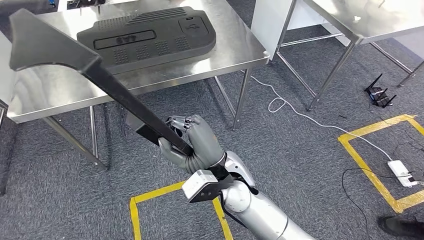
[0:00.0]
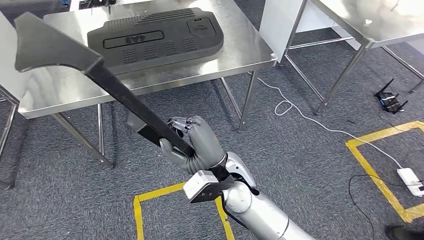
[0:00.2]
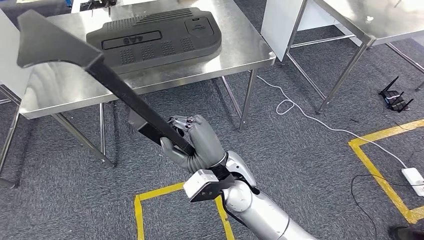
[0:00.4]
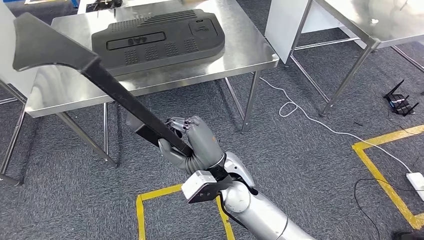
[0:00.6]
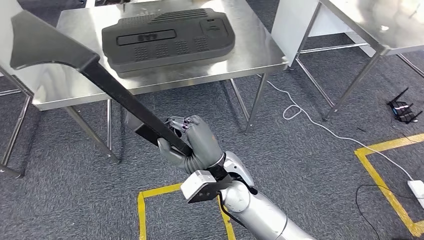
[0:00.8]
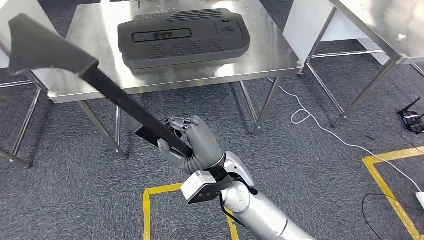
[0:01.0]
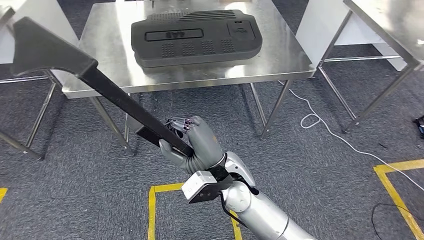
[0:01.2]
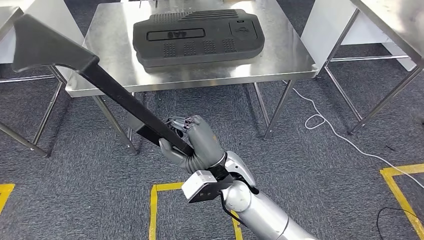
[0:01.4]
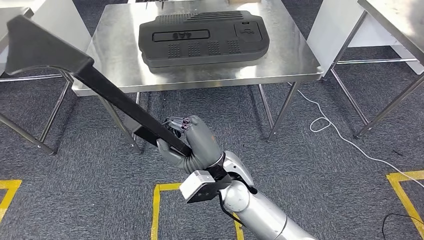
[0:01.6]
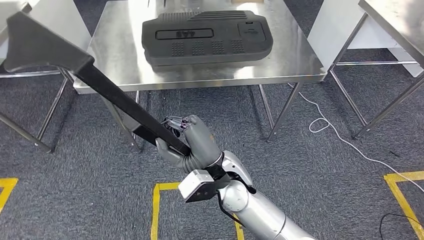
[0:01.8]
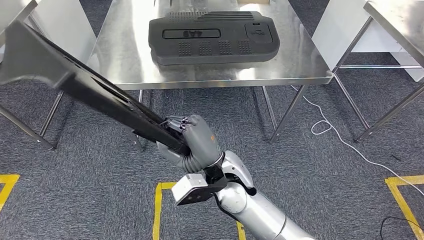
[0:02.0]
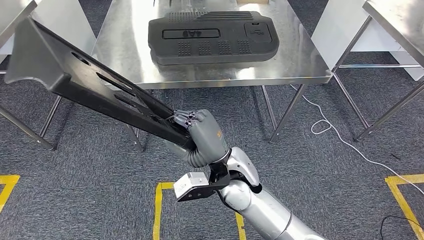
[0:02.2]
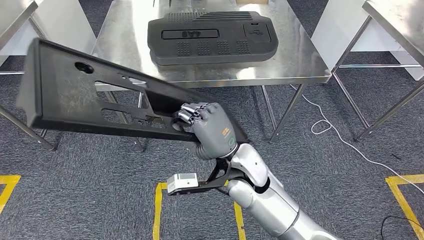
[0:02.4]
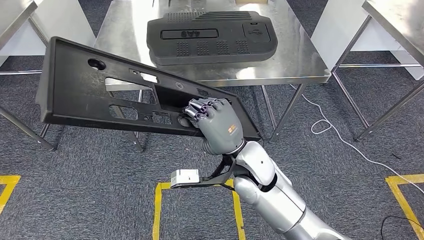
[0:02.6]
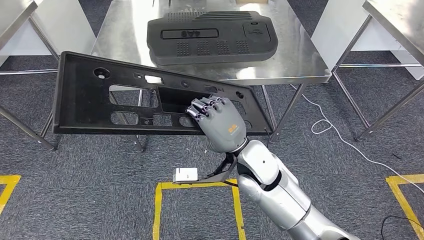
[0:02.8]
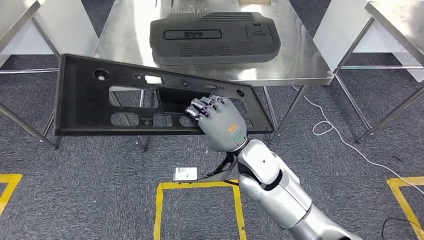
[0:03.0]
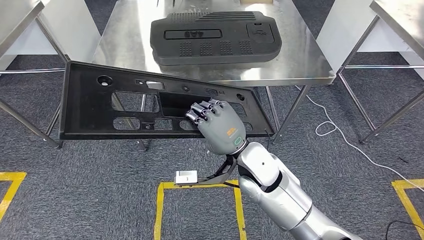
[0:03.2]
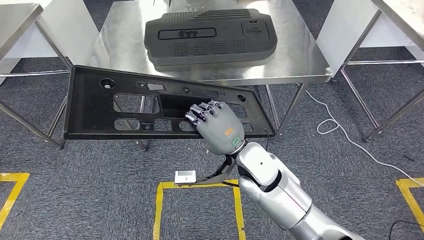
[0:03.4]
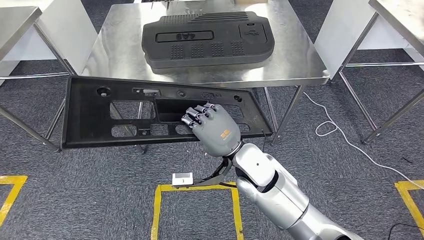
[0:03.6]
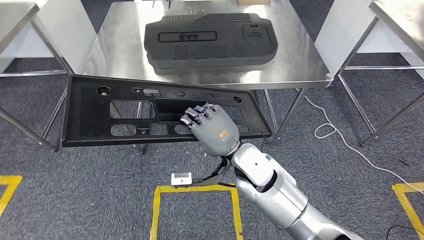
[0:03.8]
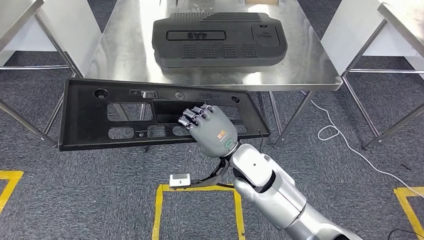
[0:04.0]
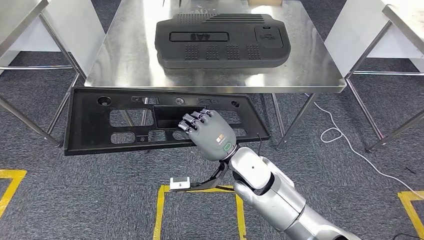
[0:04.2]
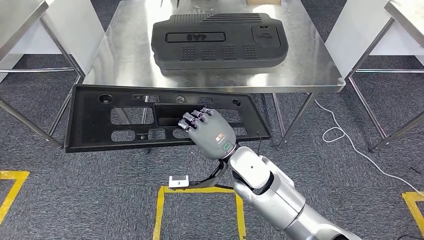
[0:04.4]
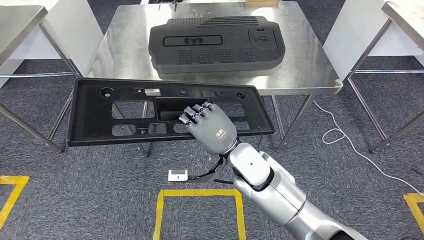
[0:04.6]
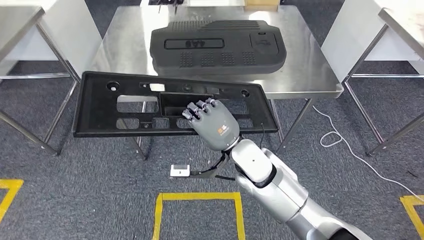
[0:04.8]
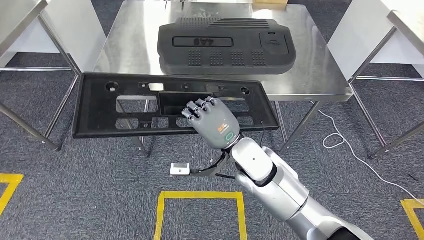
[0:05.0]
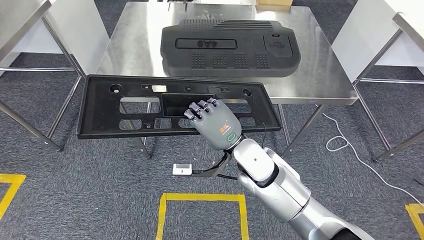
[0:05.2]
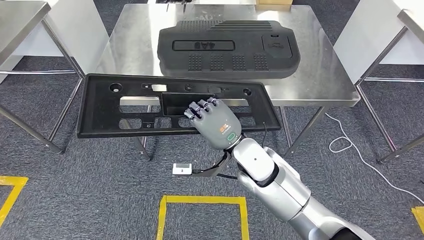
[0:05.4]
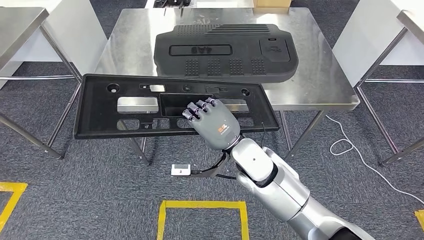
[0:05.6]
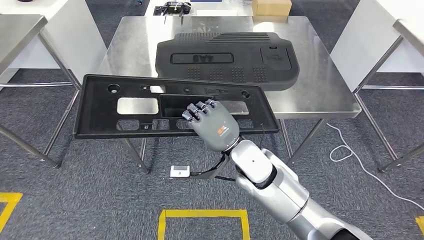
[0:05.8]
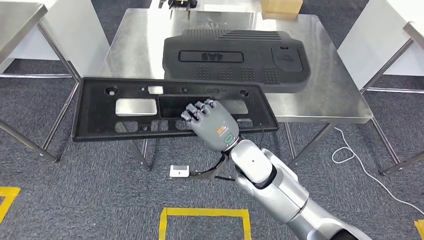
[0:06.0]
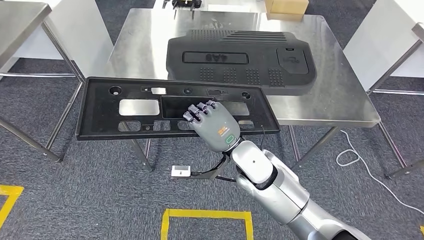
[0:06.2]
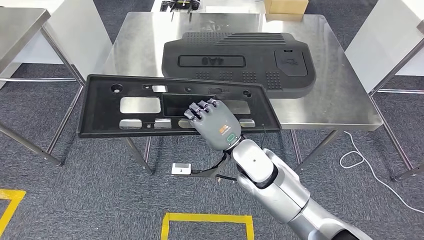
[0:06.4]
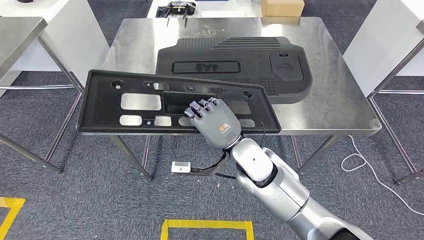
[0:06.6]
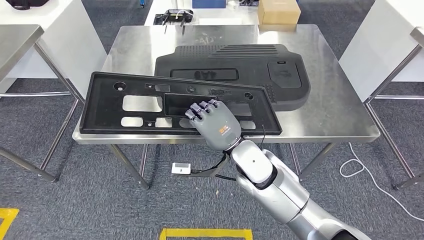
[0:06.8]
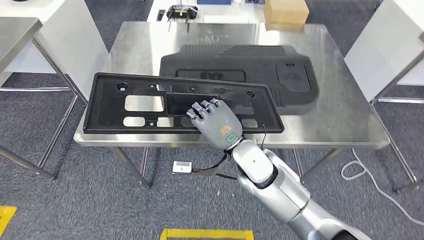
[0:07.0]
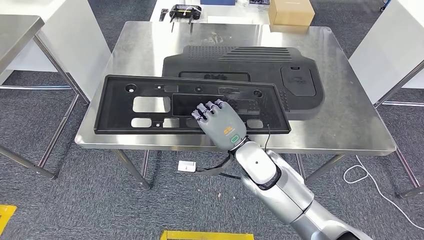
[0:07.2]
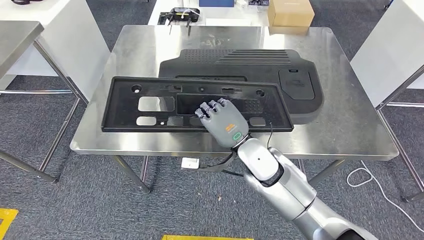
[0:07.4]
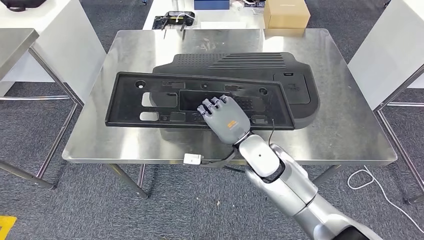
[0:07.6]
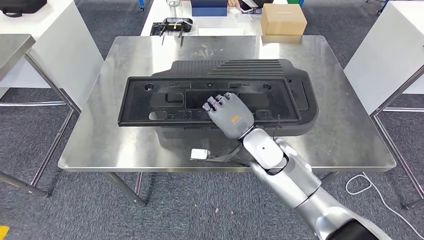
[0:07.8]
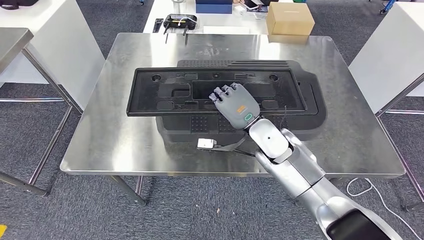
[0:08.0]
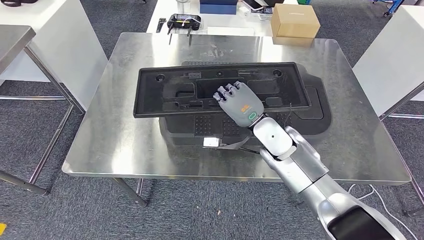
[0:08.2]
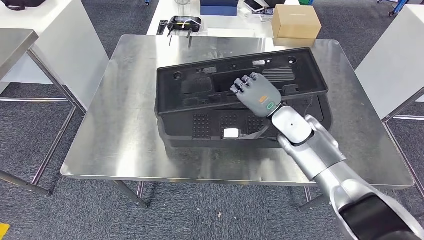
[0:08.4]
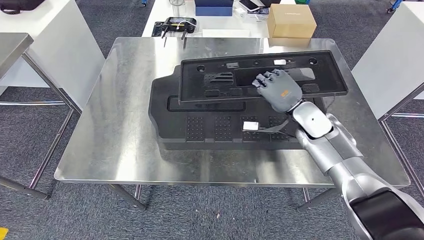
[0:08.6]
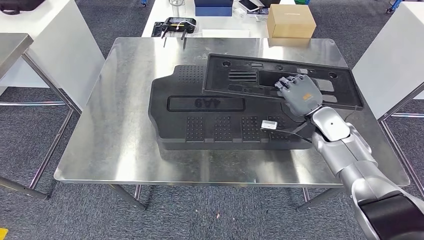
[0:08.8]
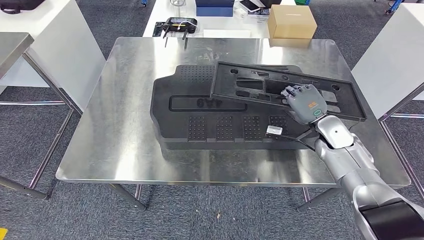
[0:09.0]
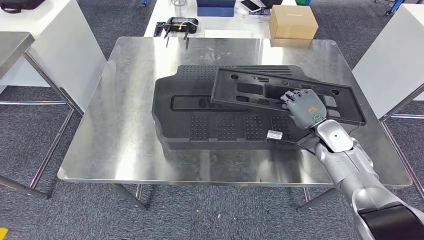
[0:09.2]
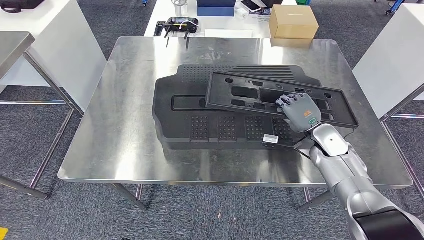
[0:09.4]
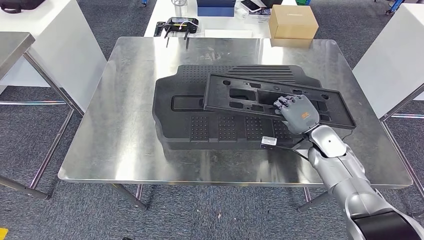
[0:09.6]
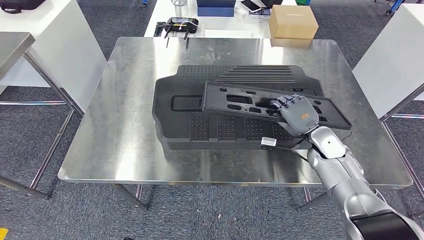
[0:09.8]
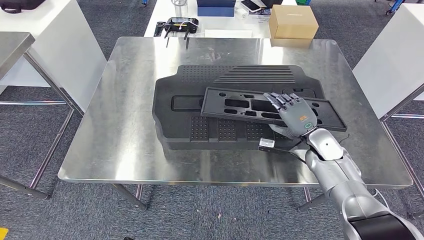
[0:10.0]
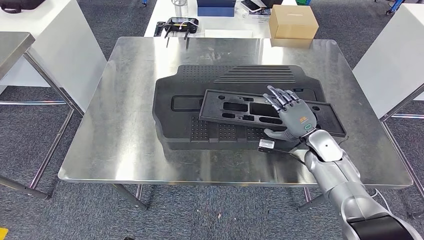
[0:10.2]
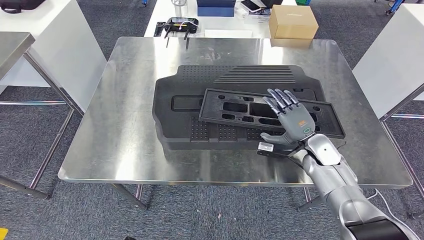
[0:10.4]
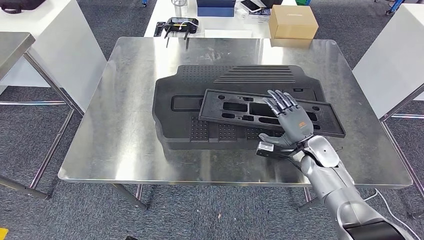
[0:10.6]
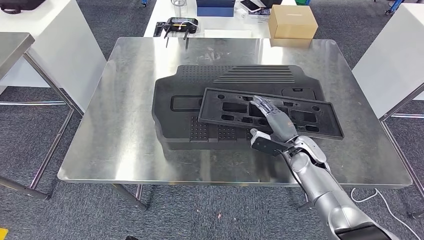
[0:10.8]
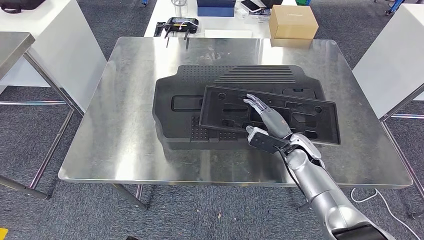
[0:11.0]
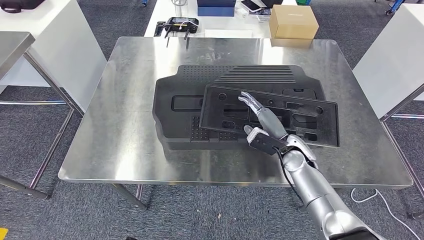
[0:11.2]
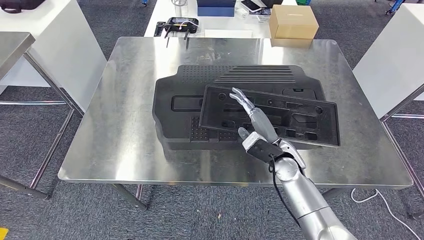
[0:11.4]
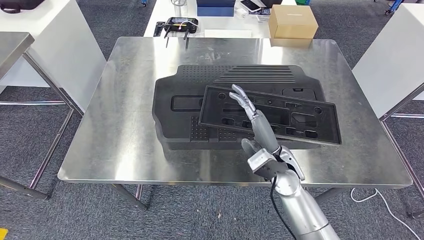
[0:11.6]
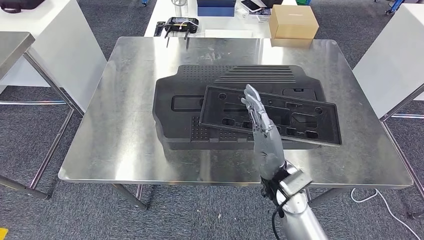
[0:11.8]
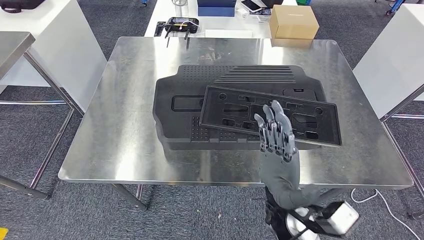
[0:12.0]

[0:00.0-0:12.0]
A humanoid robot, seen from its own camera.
Step, 0:00.0 to 0:10.2: Insert the large material into the corresponding slot on the workbench.
0:09.0 to 0:10.4: The right hand changes place by roughly 5 cm.
0:10.4 to 0:12.0: The right hand moves to the left, backward and upward, some 25 cm.

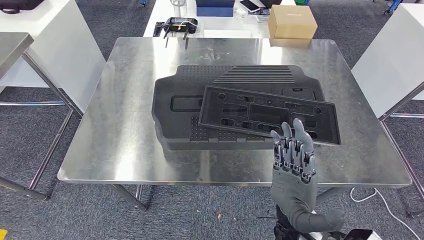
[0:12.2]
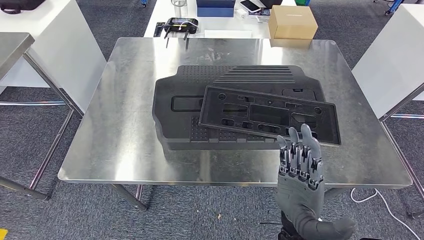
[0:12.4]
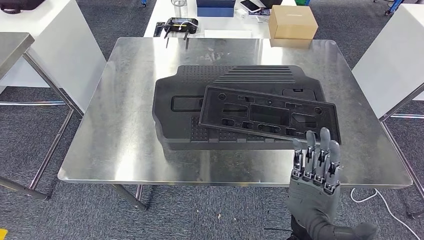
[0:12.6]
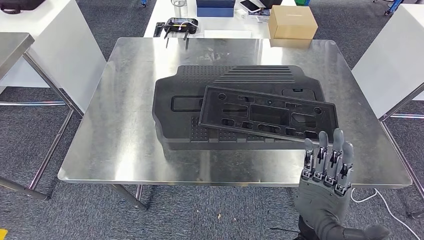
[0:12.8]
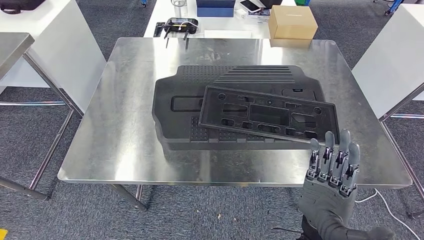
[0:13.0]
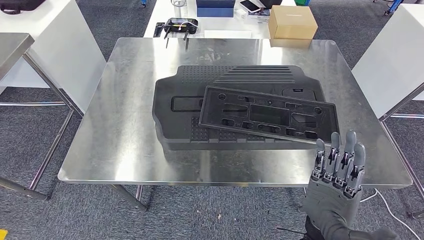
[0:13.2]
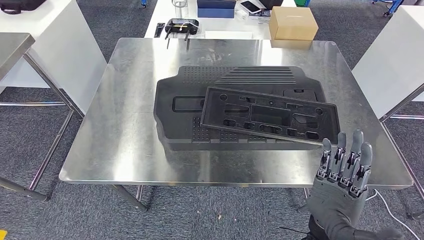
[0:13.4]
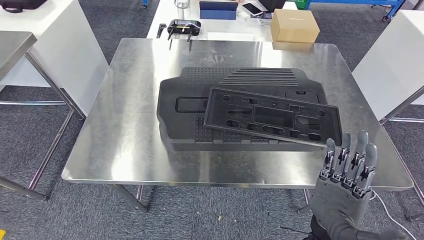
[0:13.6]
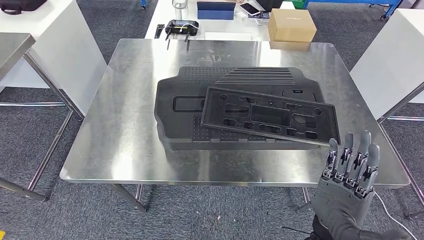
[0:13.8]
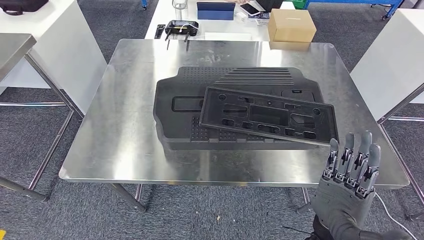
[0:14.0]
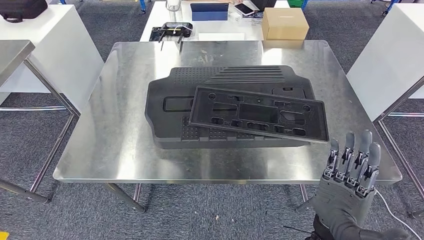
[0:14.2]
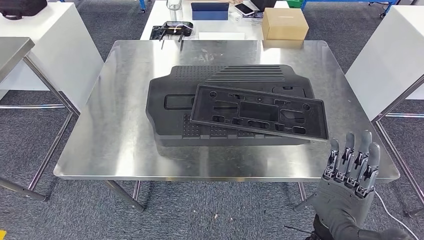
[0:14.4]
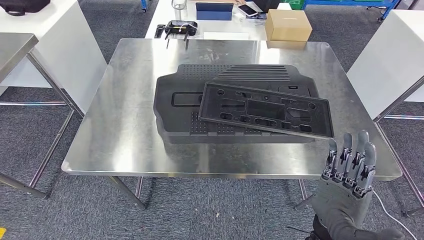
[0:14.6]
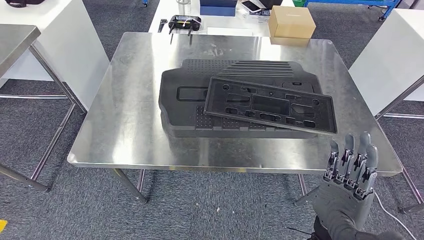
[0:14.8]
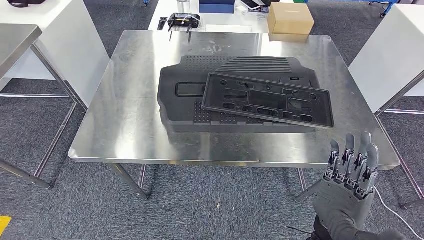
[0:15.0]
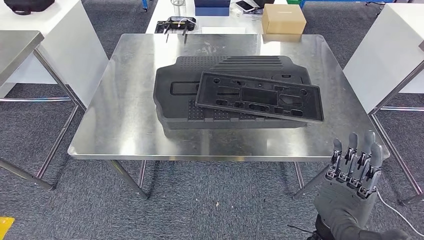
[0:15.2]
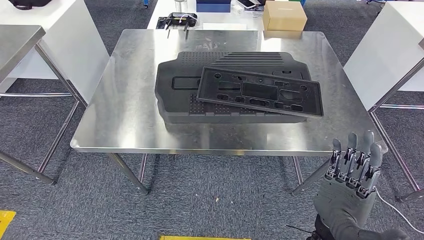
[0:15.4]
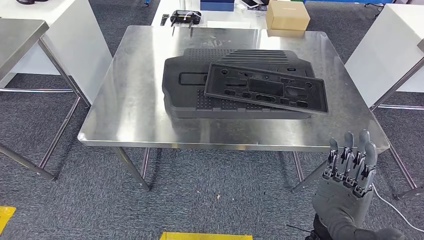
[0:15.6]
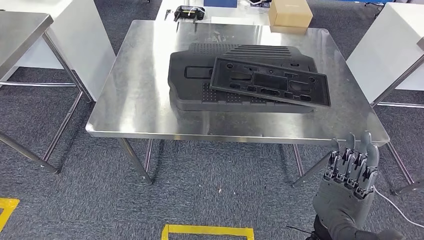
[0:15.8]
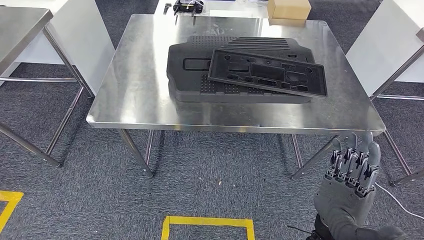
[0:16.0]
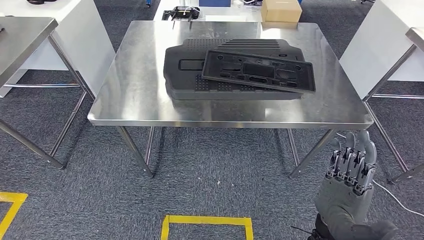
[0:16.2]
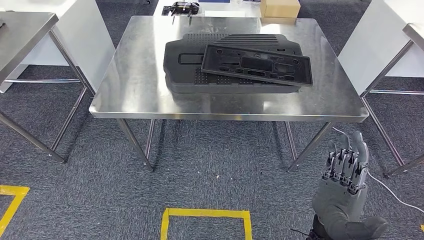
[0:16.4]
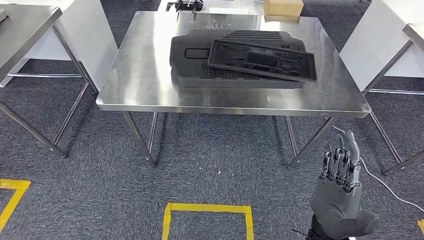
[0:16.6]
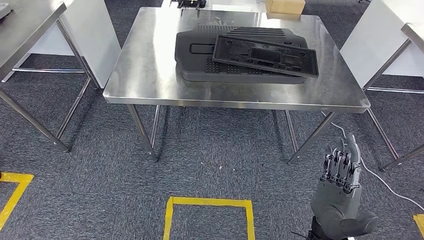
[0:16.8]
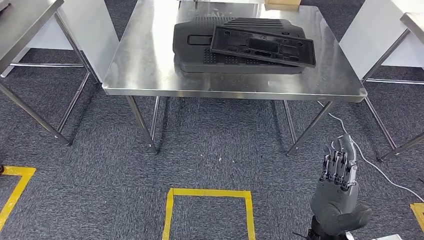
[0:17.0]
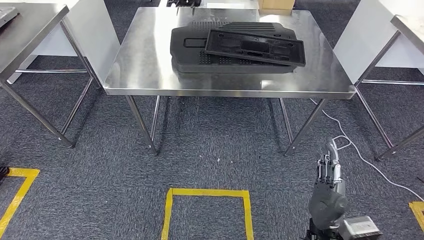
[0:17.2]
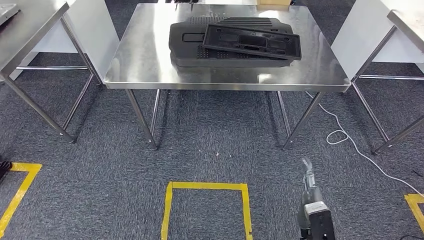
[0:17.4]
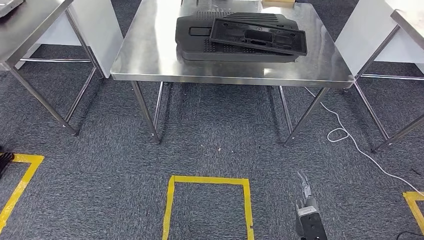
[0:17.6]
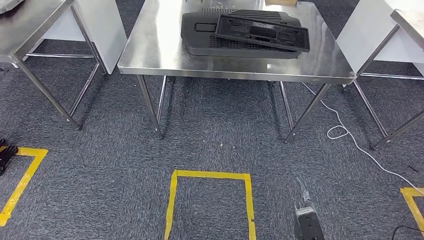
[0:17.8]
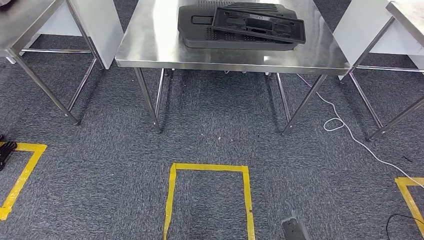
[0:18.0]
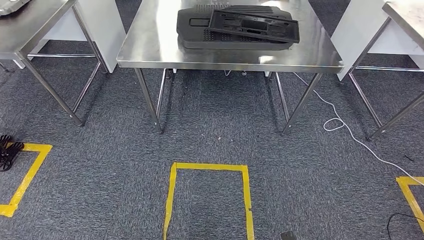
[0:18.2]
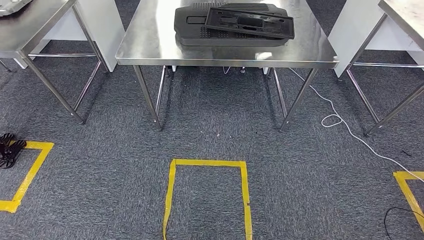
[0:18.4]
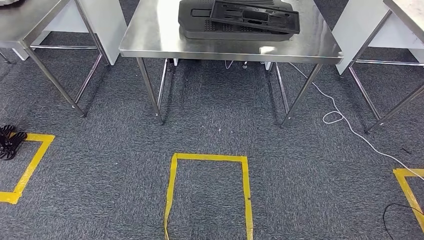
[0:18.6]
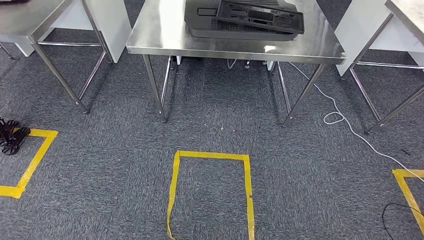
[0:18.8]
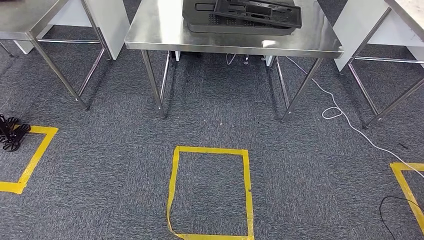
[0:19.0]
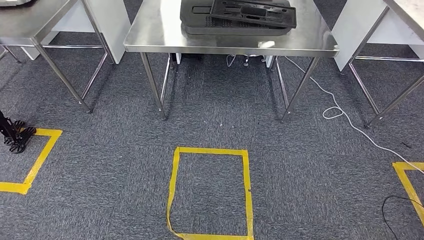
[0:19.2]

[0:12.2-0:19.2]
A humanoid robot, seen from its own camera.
0:12.2 to 0:13.6: The right hand is displaced to the right by approximately 5 cm.
